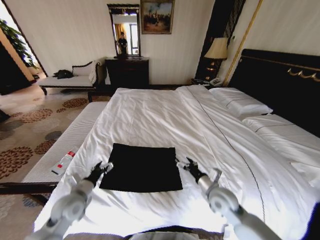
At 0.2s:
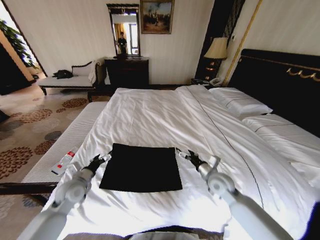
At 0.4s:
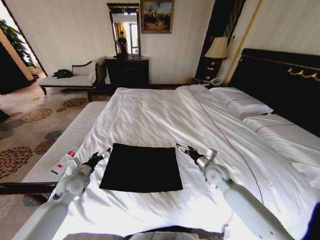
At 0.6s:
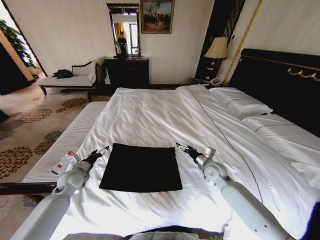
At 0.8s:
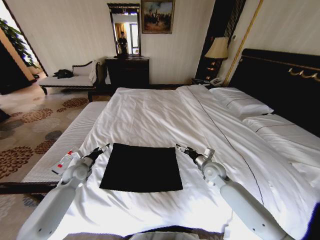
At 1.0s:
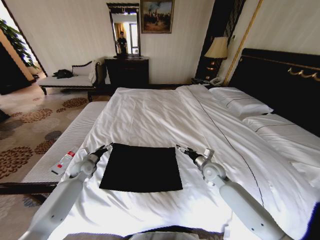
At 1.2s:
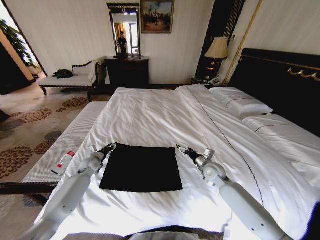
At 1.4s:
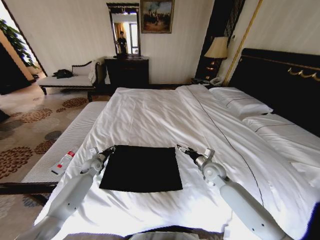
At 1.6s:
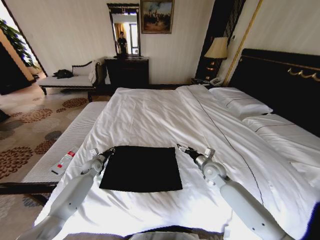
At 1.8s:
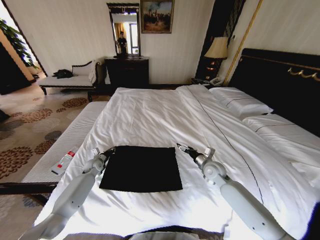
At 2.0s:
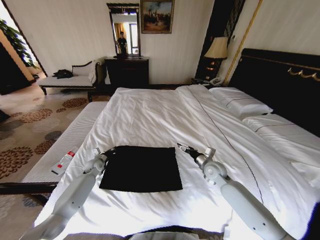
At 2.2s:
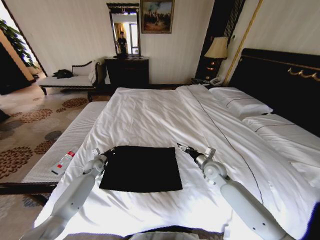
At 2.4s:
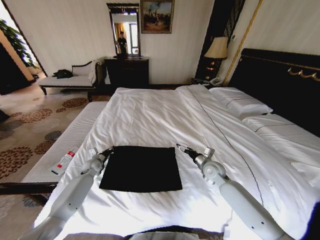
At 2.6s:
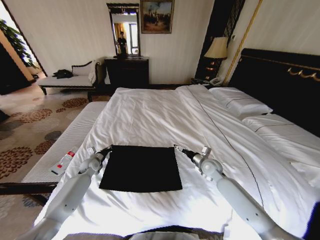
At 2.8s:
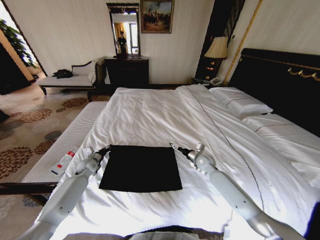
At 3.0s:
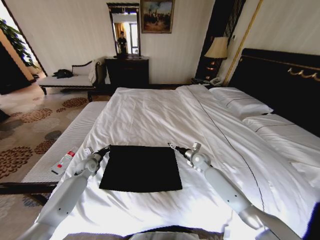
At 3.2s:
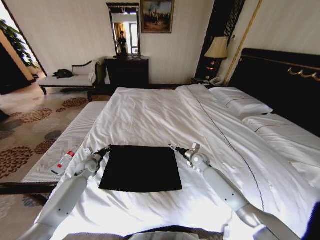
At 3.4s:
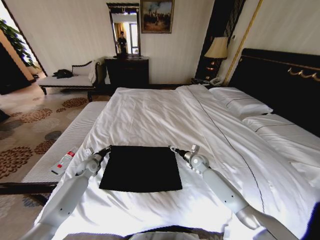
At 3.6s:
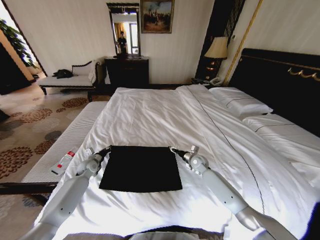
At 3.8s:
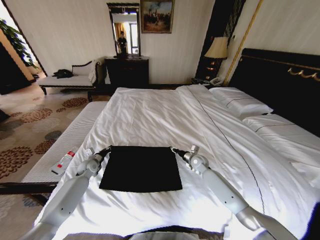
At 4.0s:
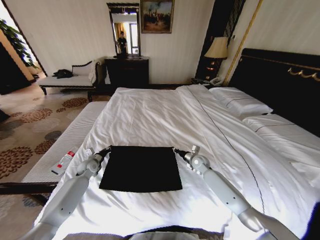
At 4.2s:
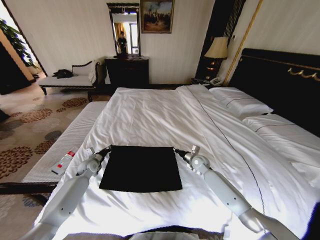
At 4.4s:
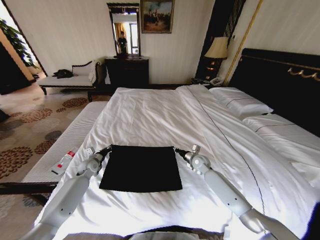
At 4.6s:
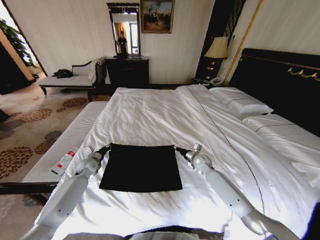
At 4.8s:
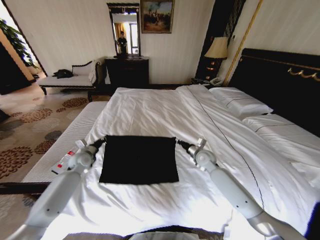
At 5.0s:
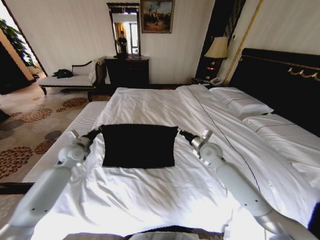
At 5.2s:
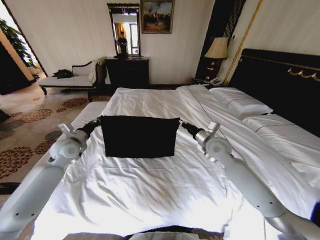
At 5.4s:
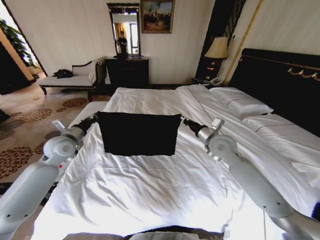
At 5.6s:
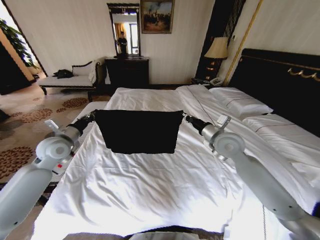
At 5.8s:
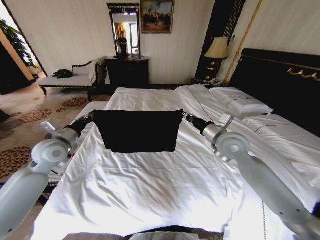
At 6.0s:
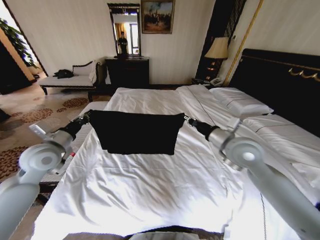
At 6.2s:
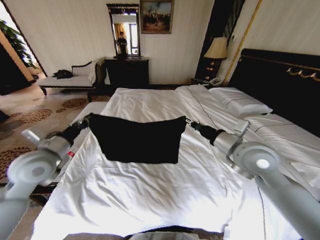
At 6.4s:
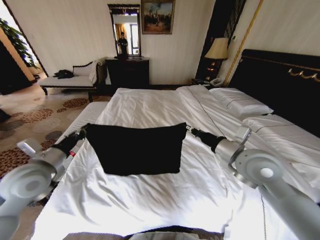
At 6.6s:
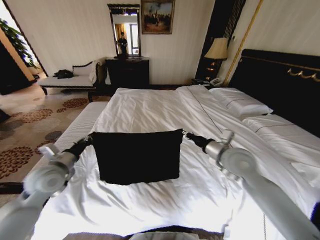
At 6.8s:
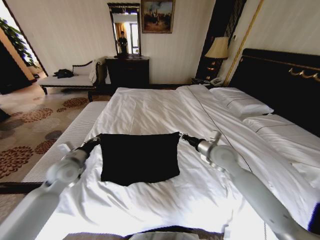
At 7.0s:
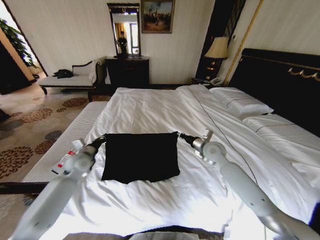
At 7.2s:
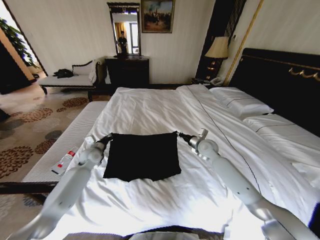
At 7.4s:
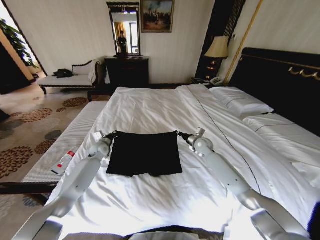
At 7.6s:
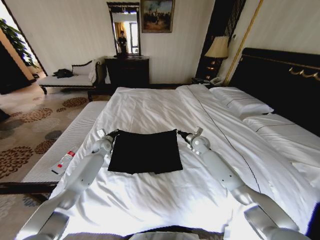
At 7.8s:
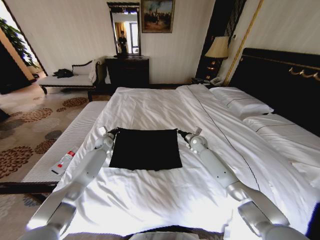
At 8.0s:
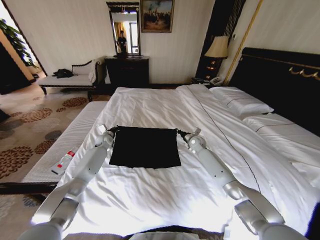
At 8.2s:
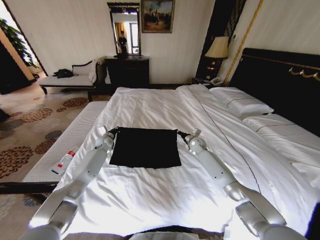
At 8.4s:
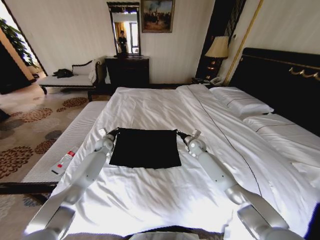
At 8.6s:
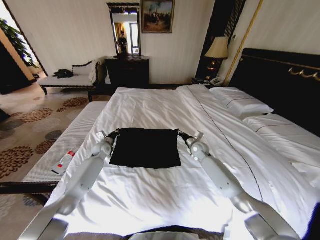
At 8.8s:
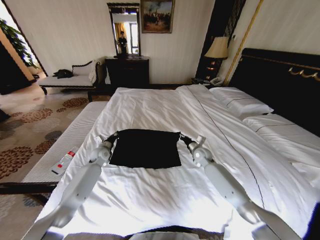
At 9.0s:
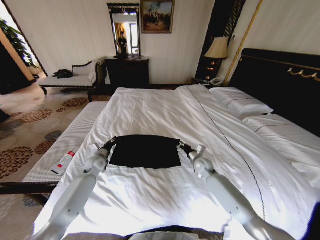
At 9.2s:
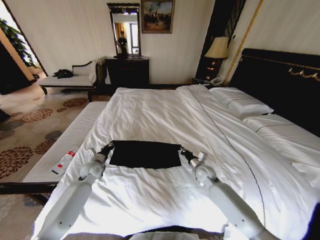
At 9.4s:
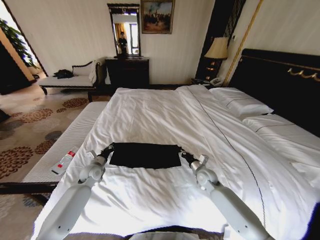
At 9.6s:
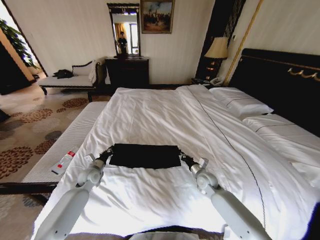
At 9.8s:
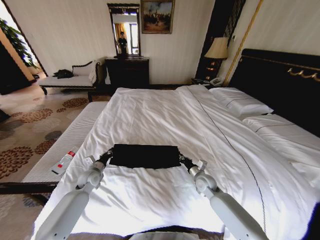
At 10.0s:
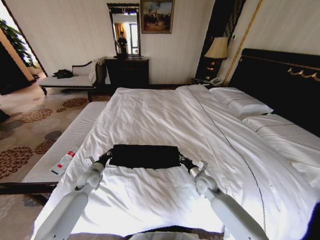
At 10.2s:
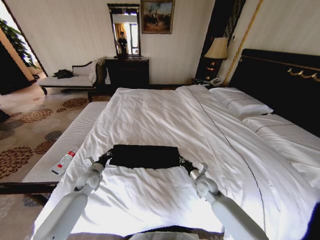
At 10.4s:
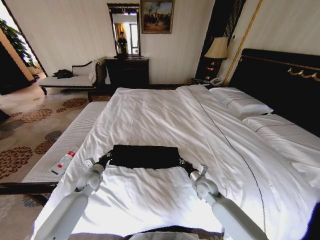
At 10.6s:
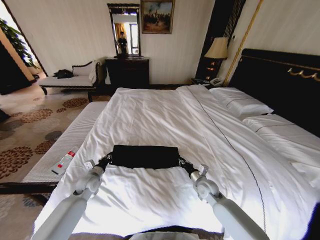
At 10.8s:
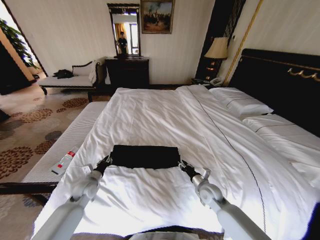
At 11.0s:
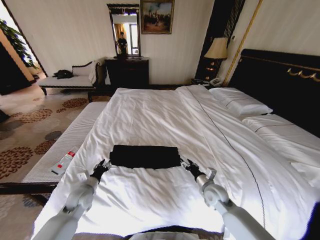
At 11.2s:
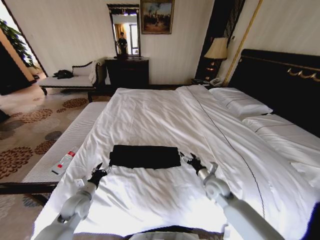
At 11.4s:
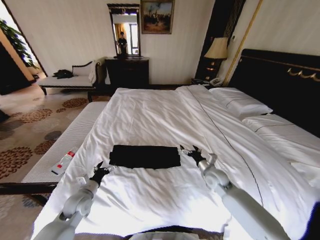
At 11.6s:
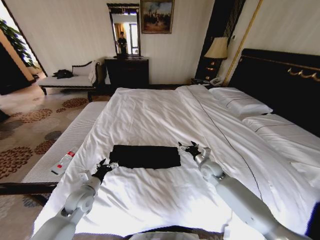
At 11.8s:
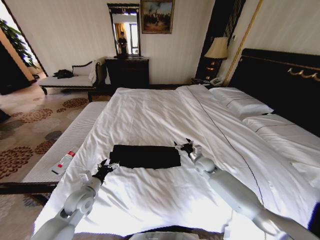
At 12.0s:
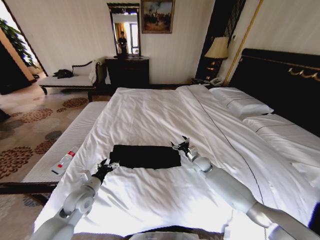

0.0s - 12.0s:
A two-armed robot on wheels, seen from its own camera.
Task of the whole recording: Fold the clothes on the bed.
0.0s - 1.6s: The left gripper moves forward and downward, approximately 25 cm, and closes up. Meanwhile the right gripper is displaced forward by roughly 10 cm.
1.6s - 3.0s: The right gripper heads forward, covering some 10 cm.
3.0s - 4.4s: The right gripper closes up.
4.4s - 6.0s: The grippers both shift upward and backward by about 30 cm.
6.0s - 7.6s: The two grippers go approximately 30 cm forward and downward.
7.6s - 9.0s: The right gripper goes some 10 cm backward and downward; the left gripper moves backward, about 10 cm.
9.0s - 10.4s: Both grippers move backward, some 10 cm.
10.4s - 12.0s: The left gripper heads backward, covering about 10 cm, and opens. The right gripper heads forward, covering some 10 cm, and opens.

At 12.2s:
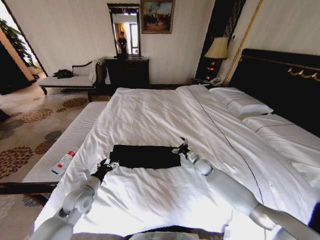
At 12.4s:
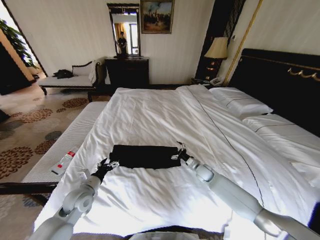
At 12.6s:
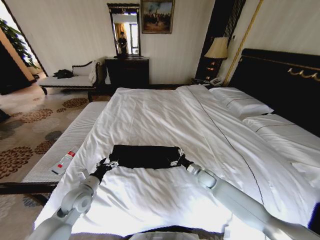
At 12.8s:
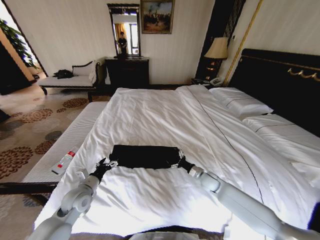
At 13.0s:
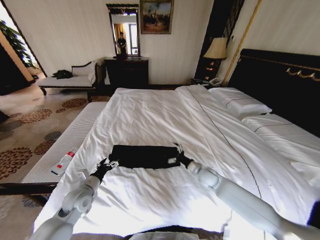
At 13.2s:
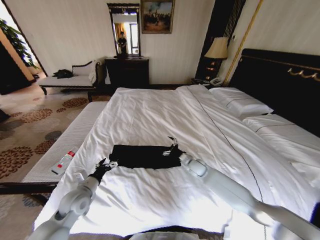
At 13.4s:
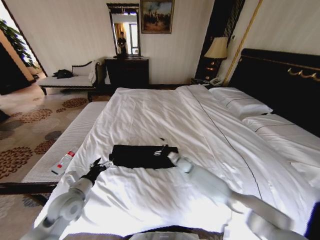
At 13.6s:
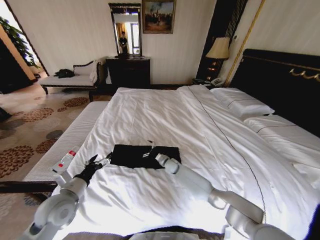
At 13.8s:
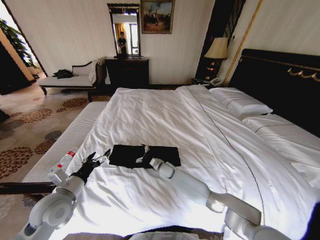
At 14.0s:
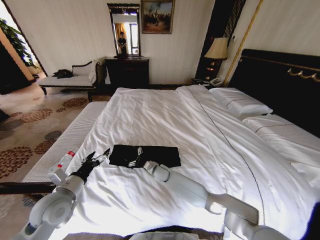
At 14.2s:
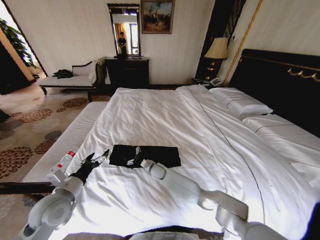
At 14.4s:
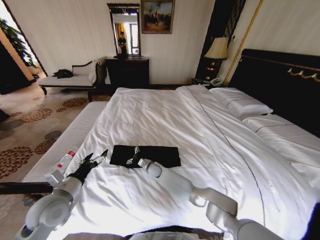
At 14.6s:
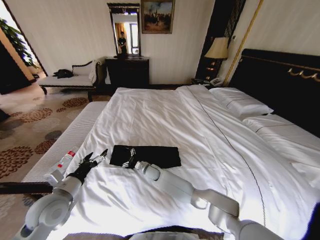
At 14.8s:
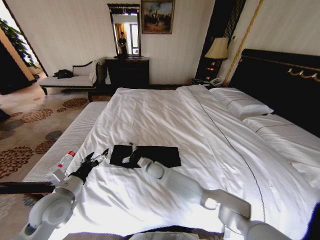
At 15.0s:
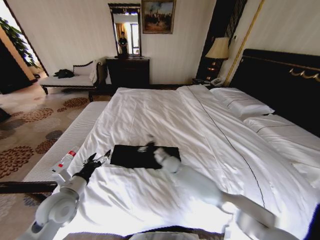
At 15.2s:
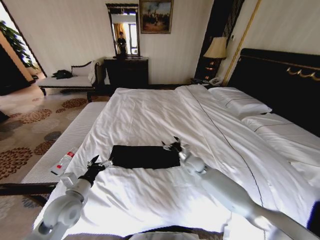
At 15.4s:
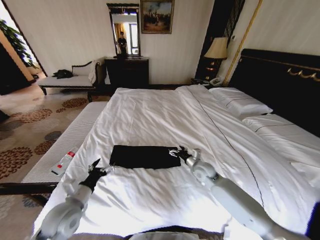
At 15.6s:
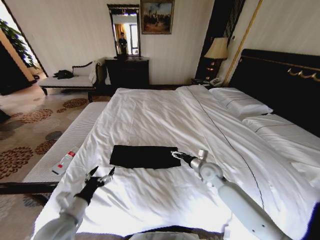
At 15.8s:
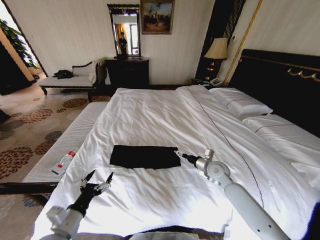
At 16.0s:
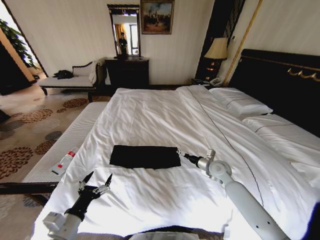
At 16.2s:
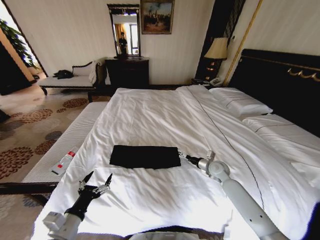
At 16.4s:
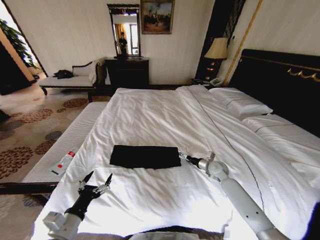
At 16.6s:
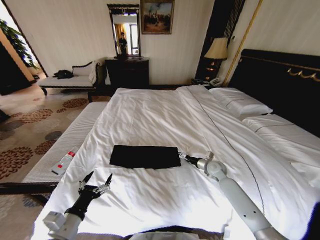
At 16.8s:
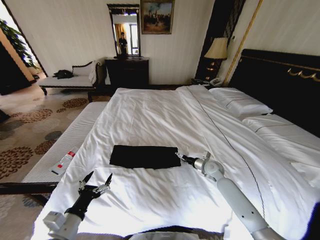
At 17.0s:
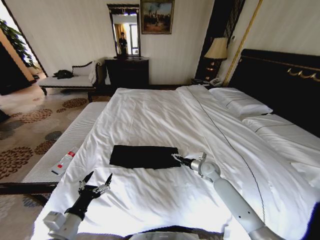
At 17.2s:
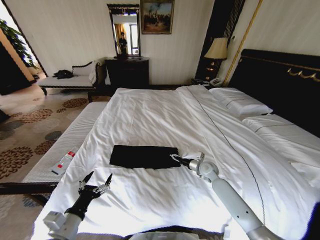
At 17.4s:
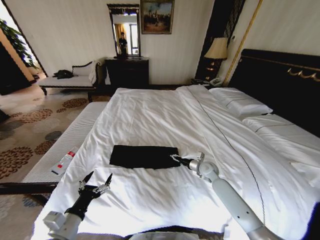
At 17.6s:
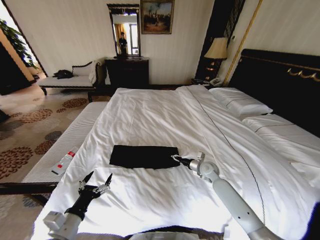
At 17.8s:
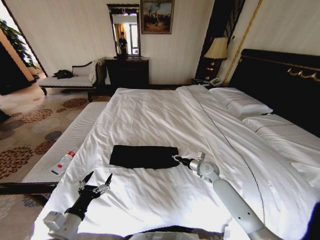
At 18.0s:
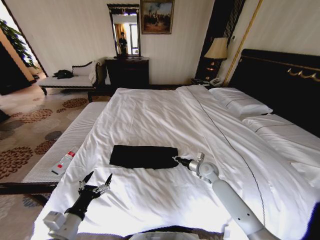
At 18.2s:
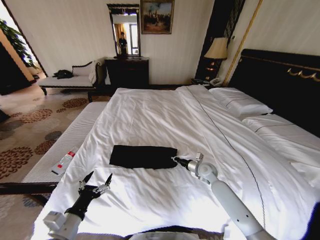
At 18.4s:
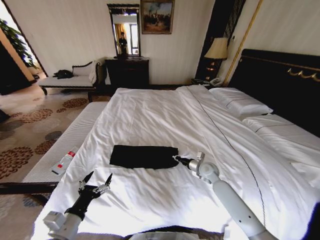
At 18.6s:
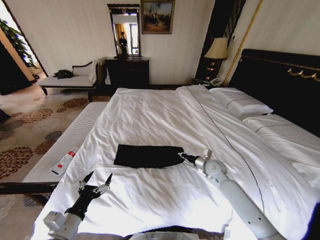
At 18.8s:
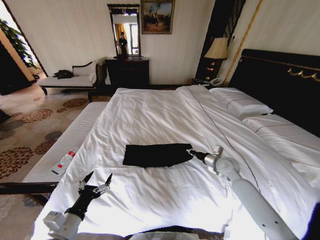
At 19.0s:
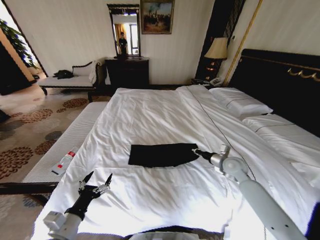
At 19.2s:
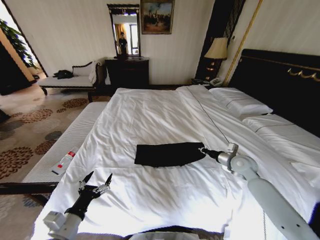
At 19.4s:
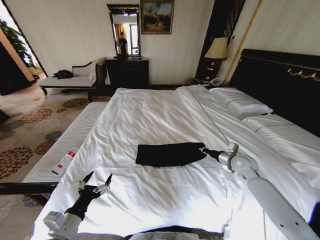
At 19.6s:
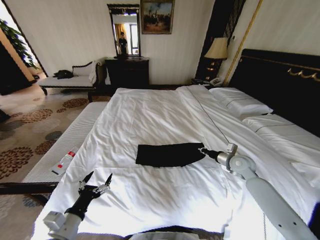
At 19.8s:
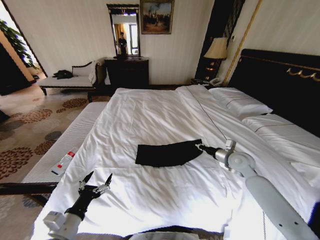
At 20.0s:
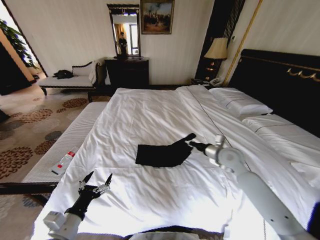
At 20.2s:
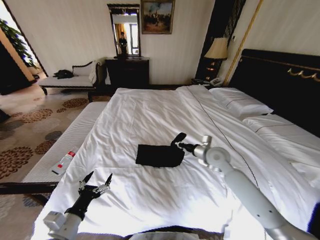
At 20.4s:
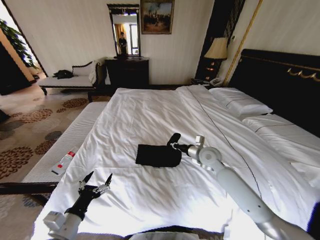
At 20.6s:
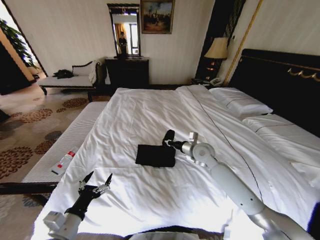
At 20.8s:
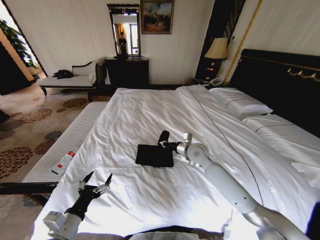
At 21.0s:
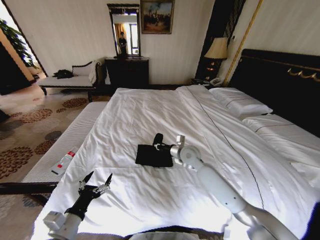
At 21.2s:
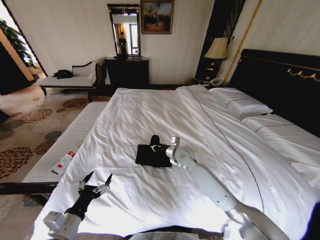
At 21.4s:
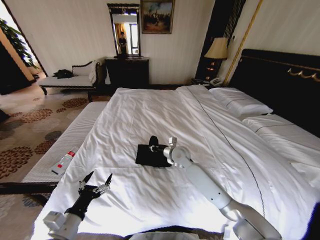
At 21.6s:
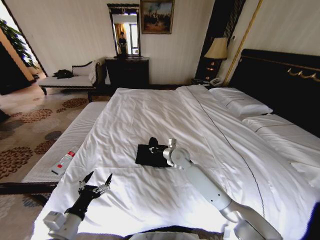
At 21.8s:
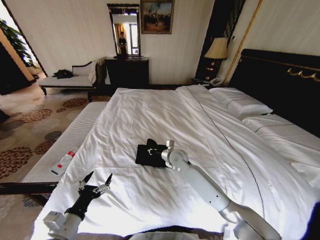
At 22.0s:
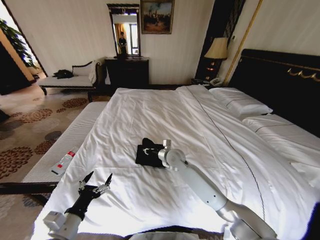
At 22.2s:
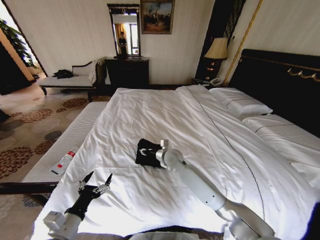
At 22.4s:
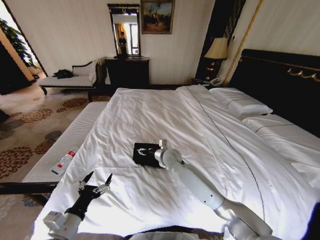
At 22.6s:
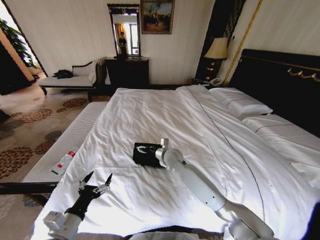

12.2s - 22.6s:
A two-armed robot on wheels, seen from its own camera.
Task of the whole recording: Fold the clothes on the bed.
12.2s - 13.6s: The left gripper heads upward, covering about 10 cm; the right gripper is displaced to the left by roughly 15 cm.
13.6s - 15.2s: The right gripper shifts approximately 15 cm to the right and upward.
15.2s - 16.6s: The right gripper heads to the right, covering approximately 15 cm; the left gripper travels backward by about 10 cm.
16.6s - 18.2s: The right gripper heads to the left, covering some 5 cm, and closes its fingers.
18.2s - 19.6s: The right gripper shifts about 15 cm to the right and upward.
19.6s - 21.2s: The right gripper is displaced to the left by about 25 cm.
21.2s - 22.6s: The right gripper is displaced to the left by some 5 cm, and opens.
